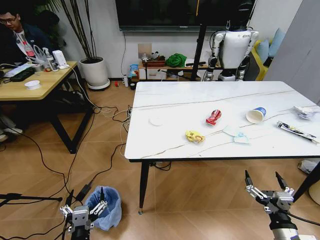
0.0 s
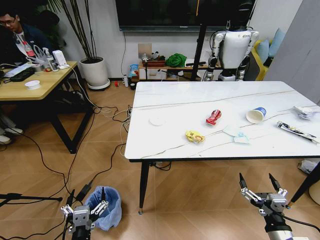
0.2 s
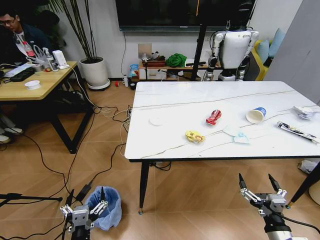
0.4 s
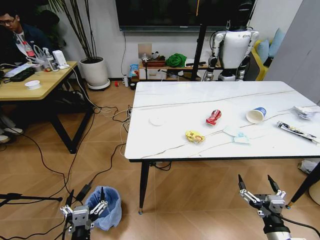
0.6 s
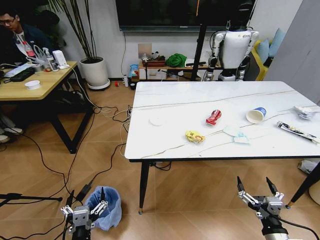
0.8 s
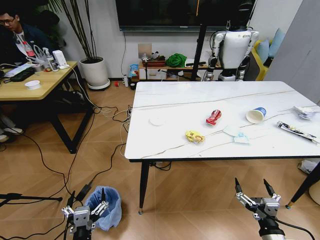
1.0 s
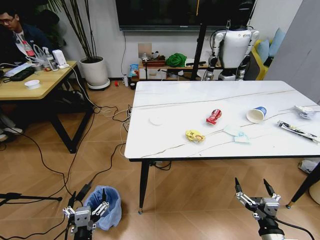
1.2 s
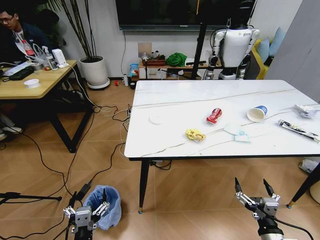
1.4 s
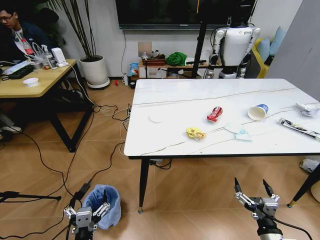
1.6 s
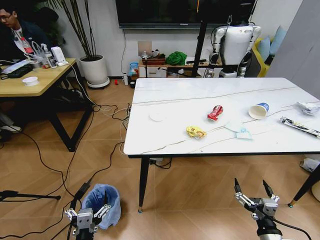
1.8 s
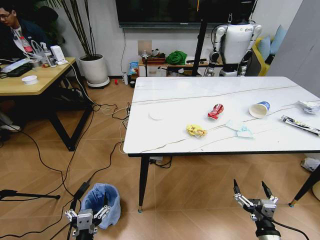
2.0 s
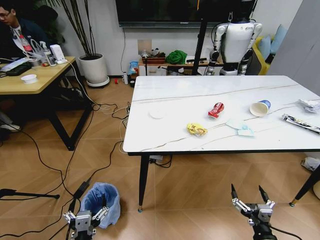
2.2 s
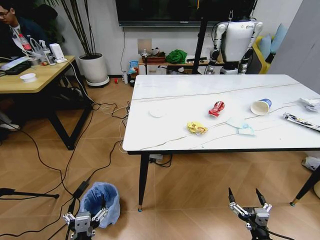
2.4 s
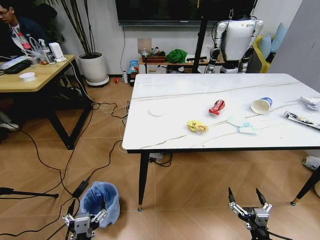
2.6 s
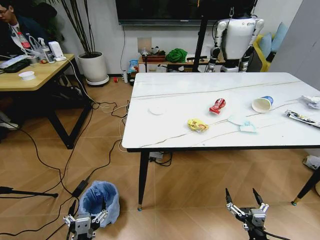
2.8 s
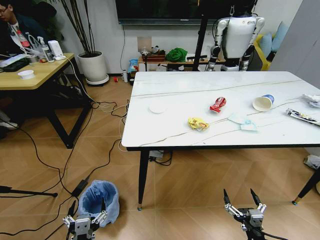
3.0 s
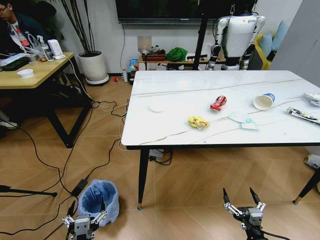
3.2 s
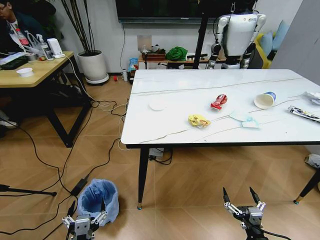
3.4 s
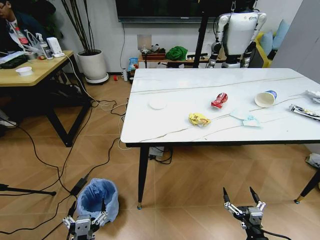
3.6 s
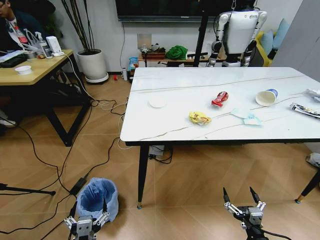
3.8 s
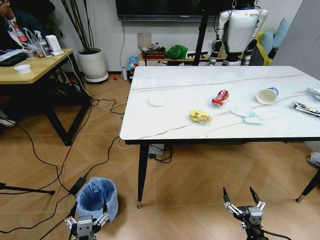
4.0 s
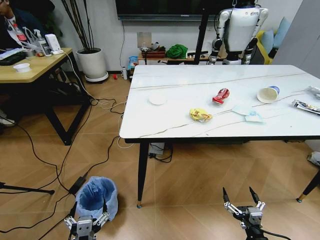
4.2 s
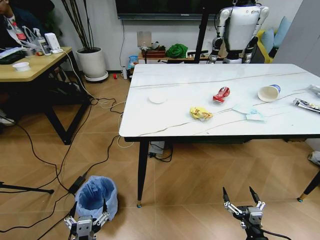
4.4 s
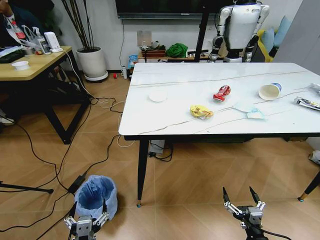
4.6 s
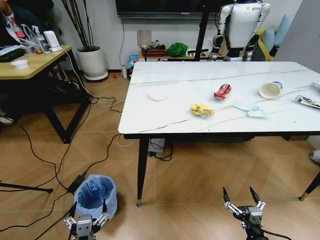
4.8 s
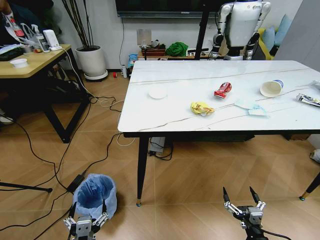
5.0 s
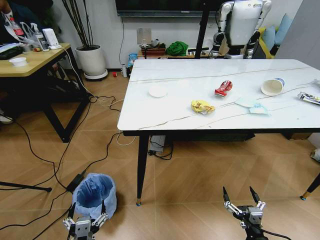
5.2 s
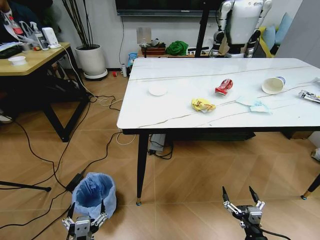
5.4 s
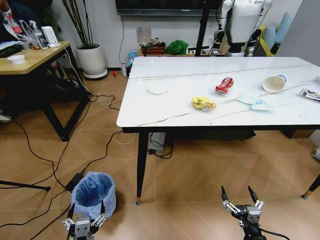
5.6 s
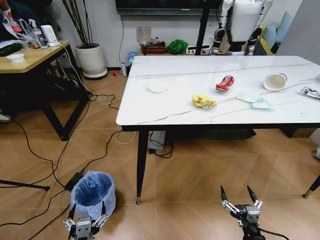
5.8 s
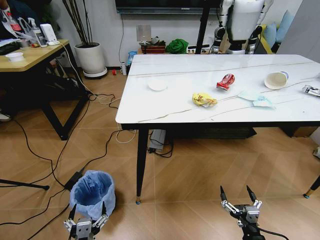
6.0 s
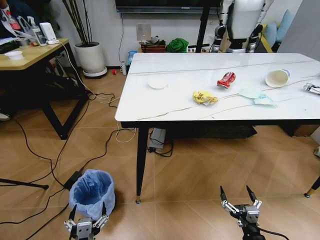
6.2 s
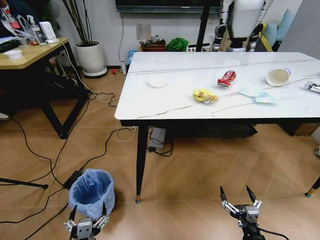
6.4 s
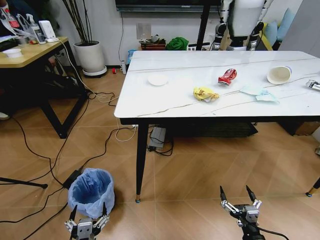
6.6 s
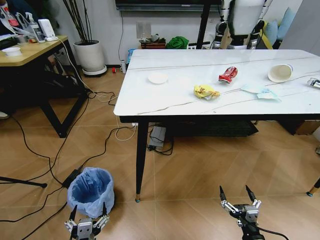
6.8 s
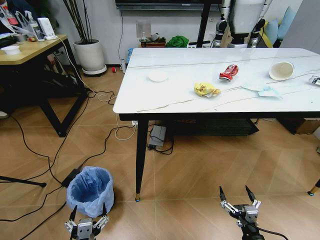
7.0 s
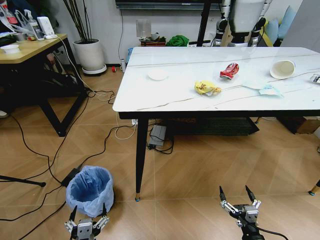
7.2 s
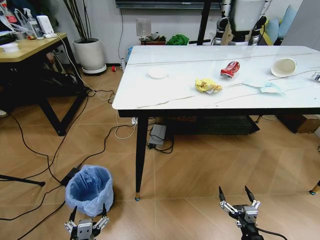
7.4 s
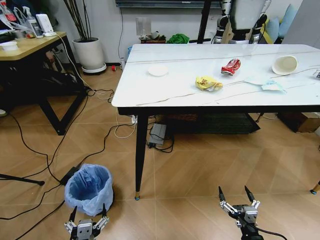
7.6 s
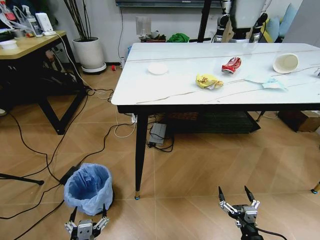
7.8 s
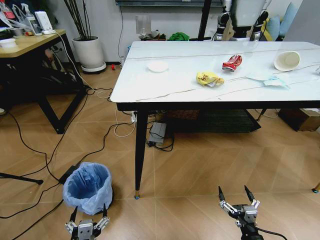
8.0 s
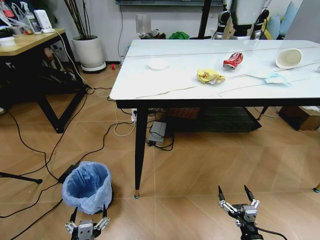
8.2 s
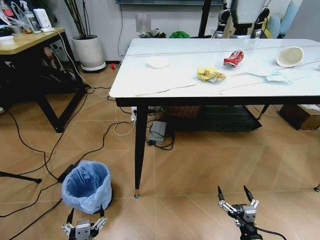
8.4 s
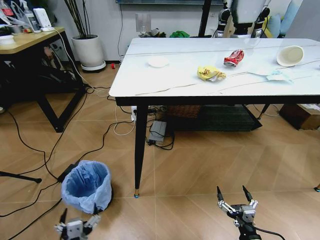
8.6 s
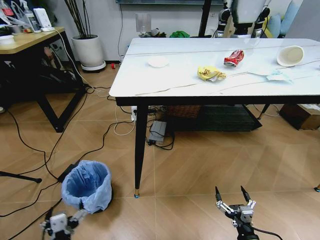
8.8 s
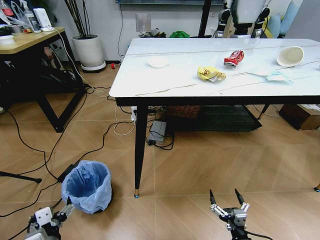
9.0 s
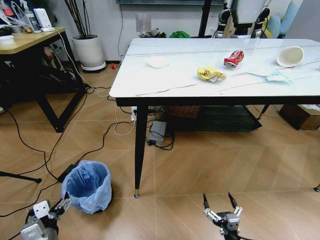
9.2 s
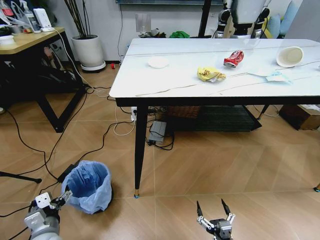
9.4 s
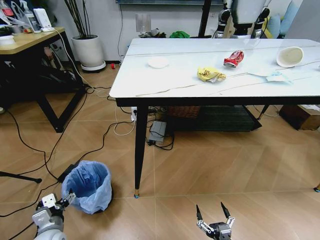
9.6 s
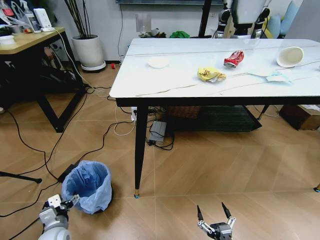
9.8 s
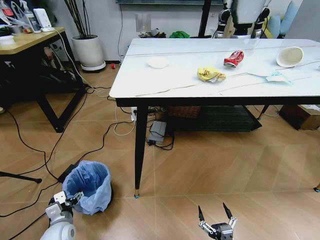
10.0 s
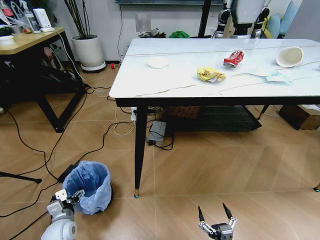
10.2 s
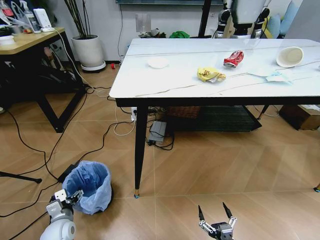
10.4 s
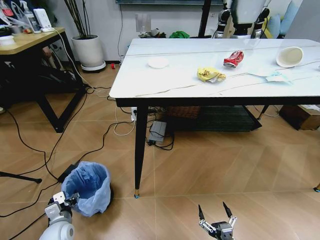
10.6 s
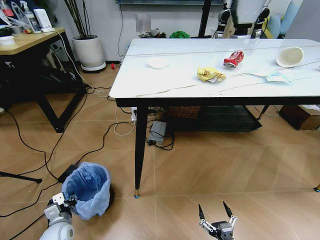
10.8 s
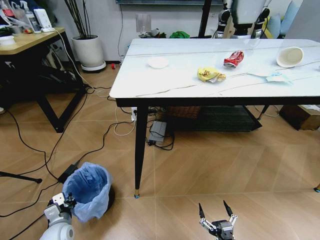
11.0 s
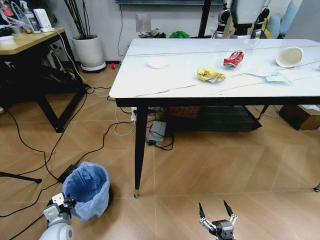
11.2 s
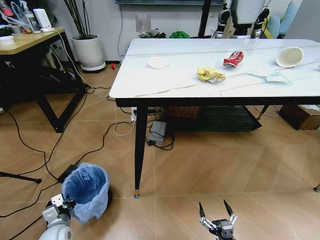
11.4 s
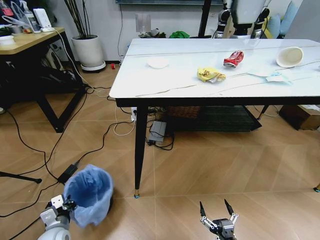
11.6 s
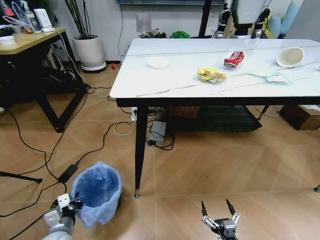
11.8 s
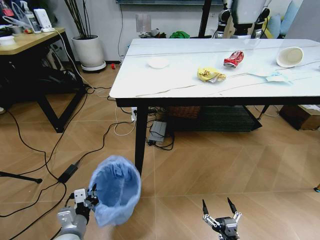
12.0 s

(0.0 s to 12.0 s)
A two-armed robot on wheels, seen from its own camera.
Task of the whole recording: Pick up the trash bin and place the trash from the table into it.
1.6 s - 3.0 s: The right gripper shifts by some 5 cm.
7.6 s - 9.0 s: The left gripper travels to the left and forward by about 10 cm.
9.0 s - 10.4 s: The right gripper moves some 5 cm. Meanwhile the left gripper travels forward, downward and to the left by roughly 15 cm.
10.4 s - 12.0 s: The left gripper travels to the right, upward and backward by roughly 10 cm, and closes its fingers.

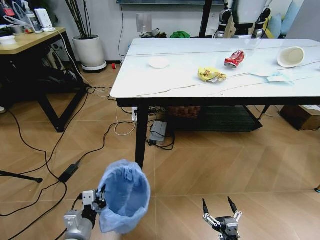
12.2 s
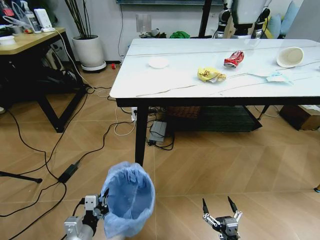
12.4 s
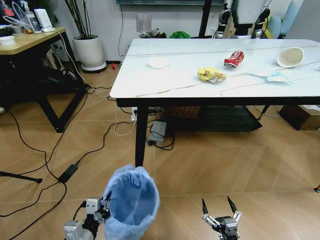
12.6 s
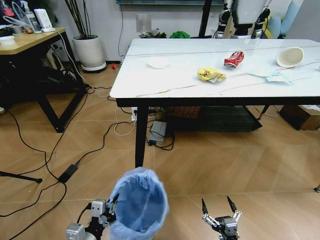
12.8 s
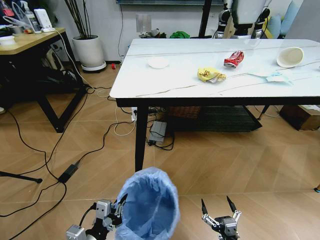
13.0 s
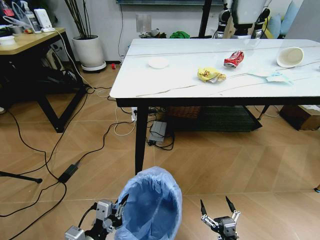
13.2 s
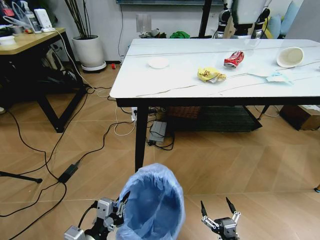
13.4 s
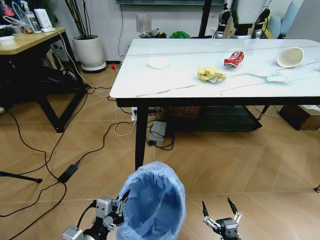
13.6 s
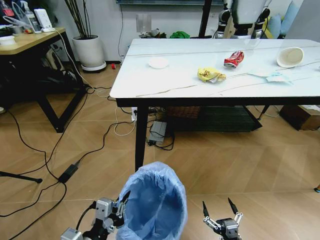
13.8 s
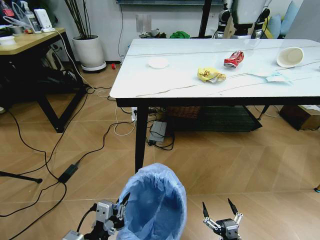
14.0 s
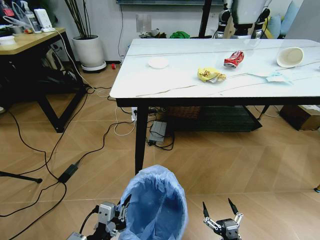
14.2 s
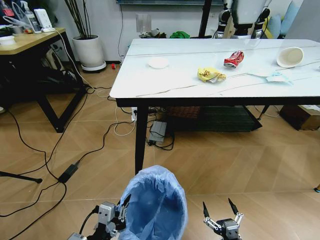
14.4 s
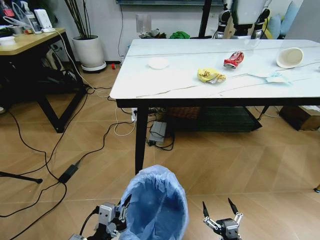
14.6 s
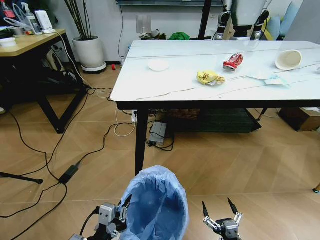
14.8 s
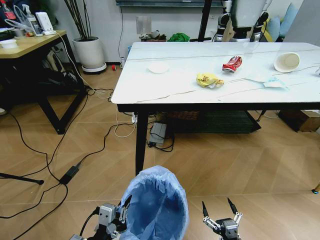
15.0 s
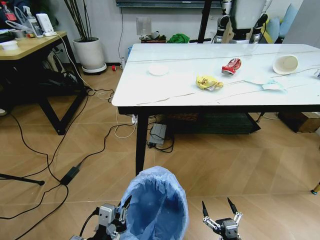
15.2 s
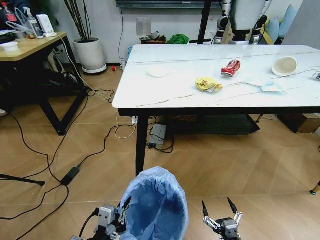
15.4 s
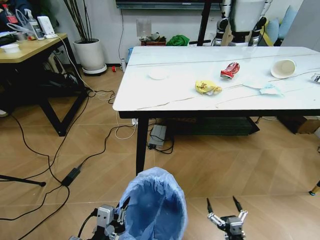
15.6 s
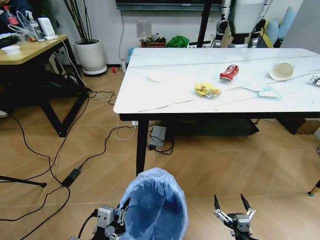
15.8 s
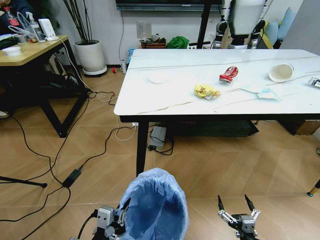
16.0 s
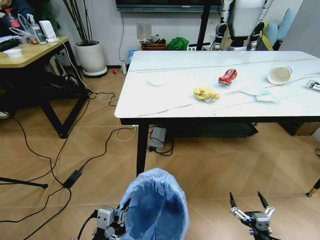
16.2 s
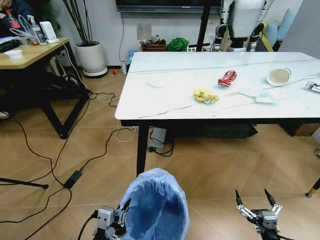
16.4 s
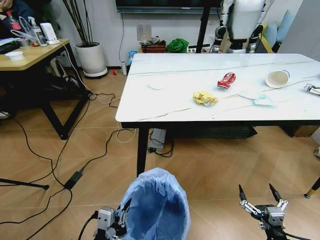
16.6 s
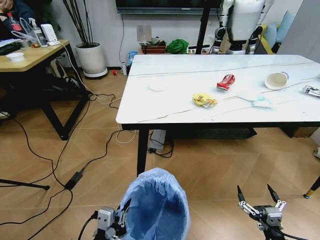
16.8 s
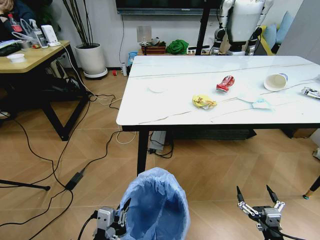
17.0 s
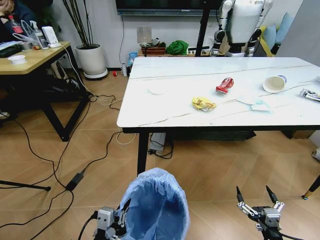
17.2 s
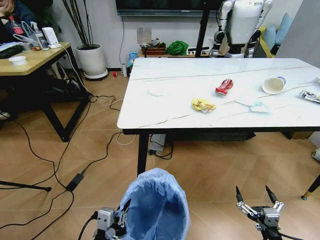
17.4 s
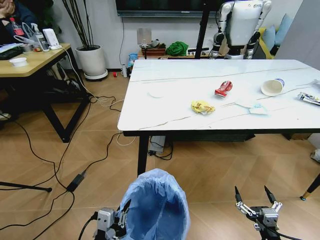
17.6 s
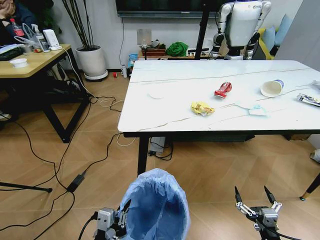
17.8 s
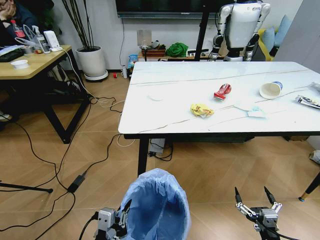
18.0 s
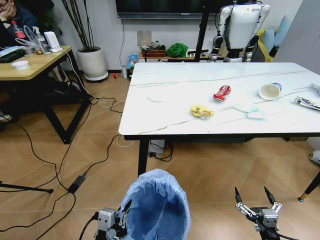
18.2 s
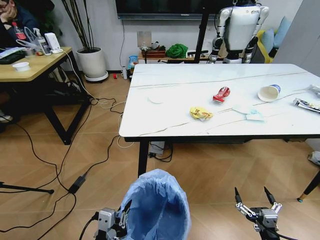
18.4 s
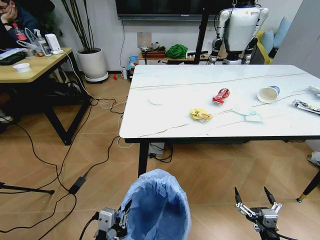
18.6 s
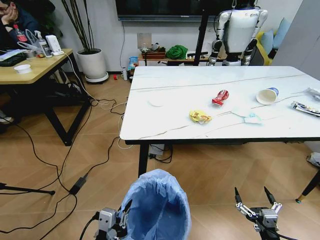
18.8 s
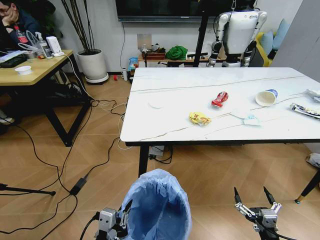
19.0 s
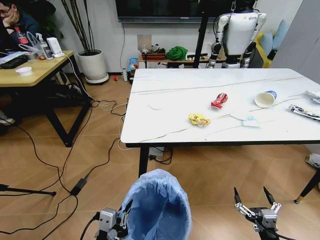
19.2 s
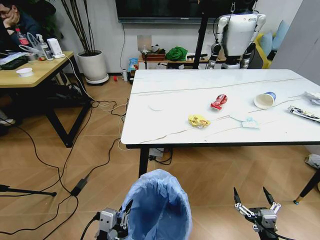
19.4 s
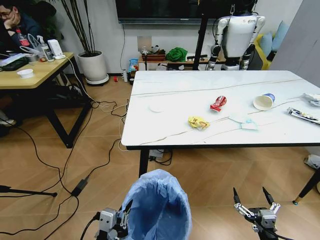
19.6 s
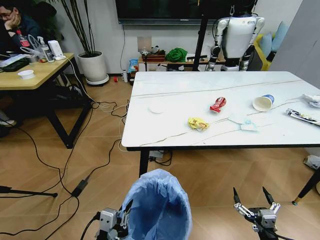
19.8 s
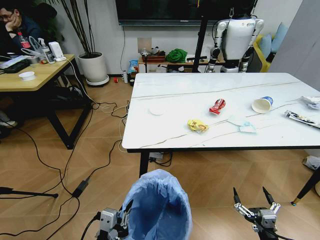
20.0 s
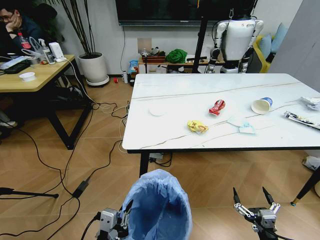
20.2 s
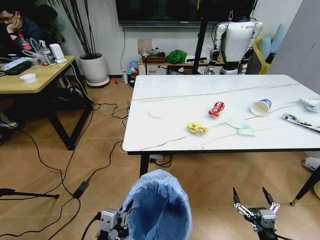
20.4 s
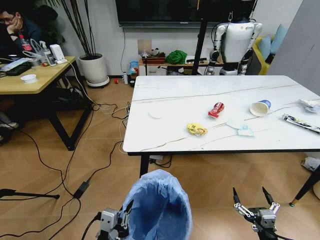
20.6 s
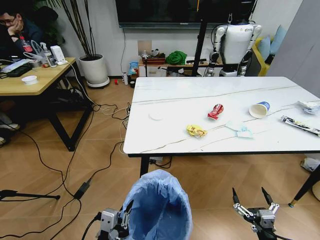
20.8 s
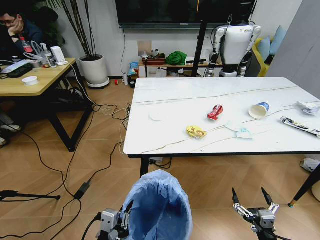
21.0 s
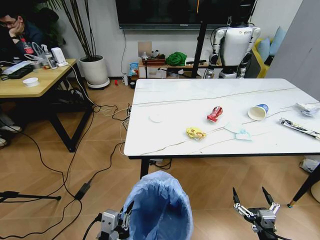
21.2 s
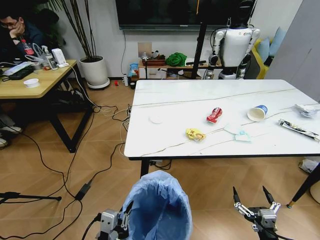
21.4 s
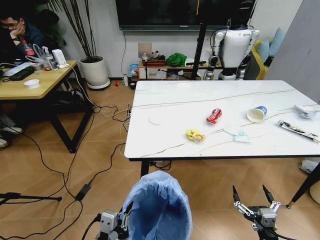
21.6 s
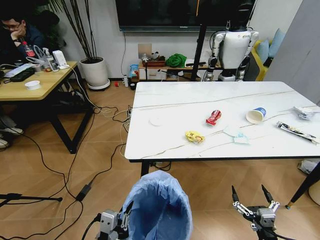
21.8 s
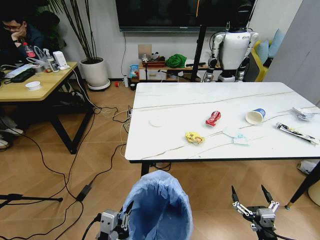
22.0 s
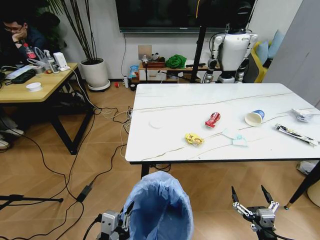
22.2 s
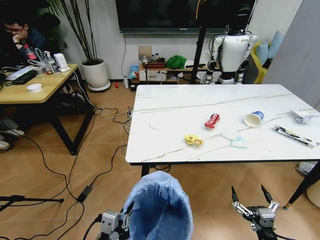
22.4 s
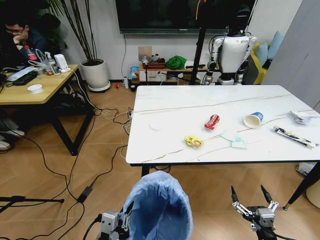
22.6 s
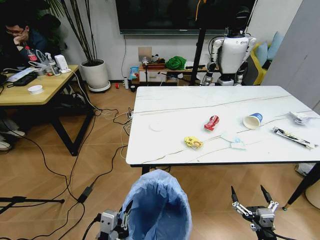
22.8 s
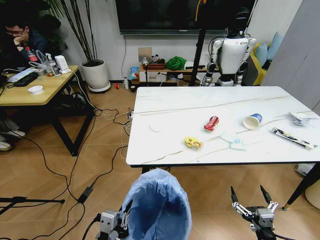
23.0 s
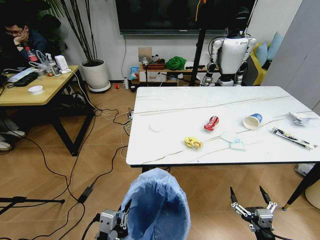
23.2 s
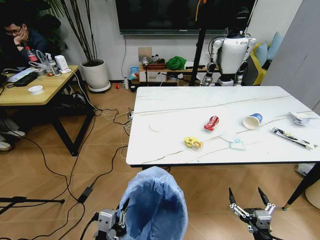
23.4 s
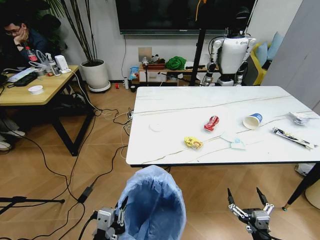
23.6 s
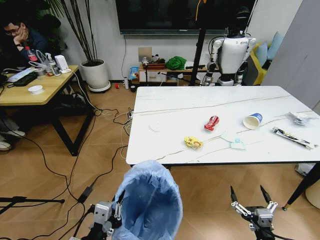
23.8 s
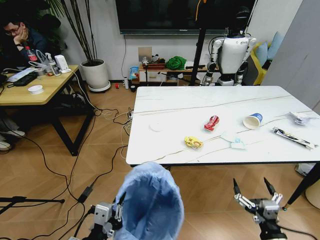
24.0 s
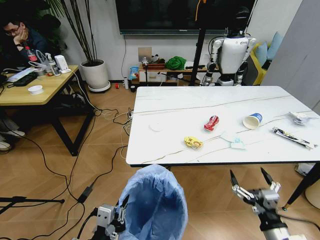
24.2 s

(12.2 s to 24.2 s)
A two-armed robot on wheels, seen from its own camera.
Task of the whole recording: Pick up the trash bin and place the trash from the table into it.
12.2 s - 13.8 s: The left gripper moves upward and backward, approximately 10 cm.
15.2 s - 16.6 s: The right gripper travels to the right and upward by some 10 cm.
22.6 s - 24.2 s: The right gripper heads upward, covering about 10 cm.
